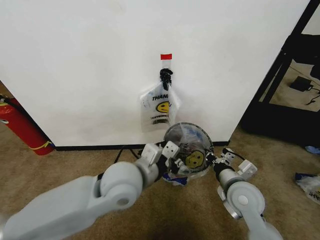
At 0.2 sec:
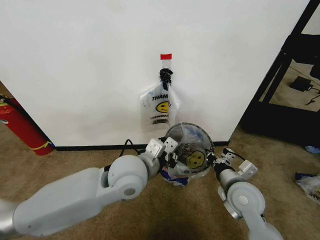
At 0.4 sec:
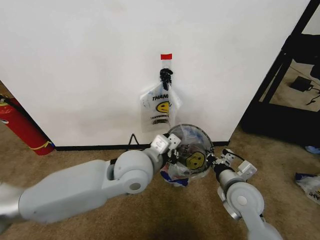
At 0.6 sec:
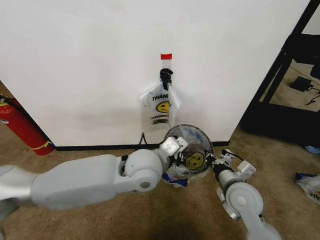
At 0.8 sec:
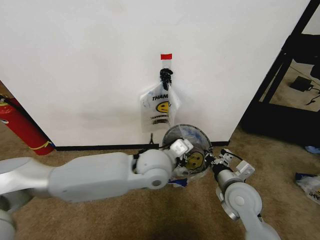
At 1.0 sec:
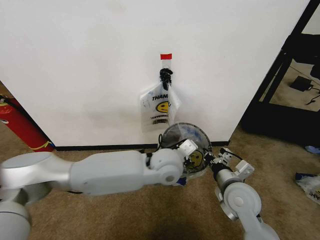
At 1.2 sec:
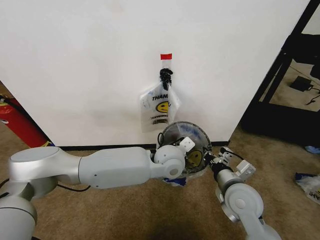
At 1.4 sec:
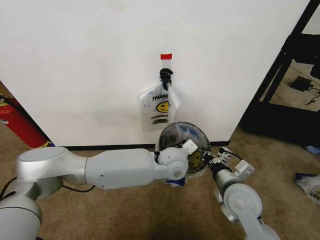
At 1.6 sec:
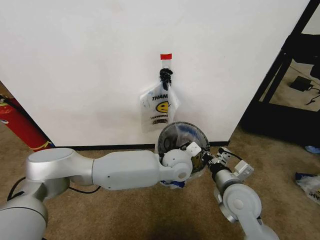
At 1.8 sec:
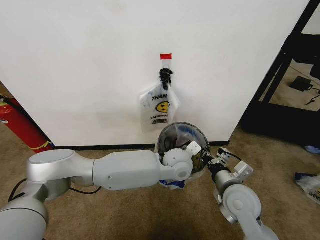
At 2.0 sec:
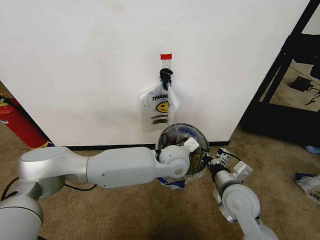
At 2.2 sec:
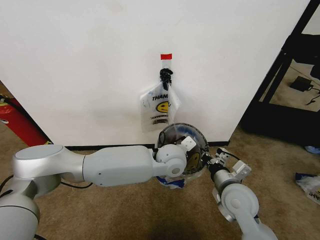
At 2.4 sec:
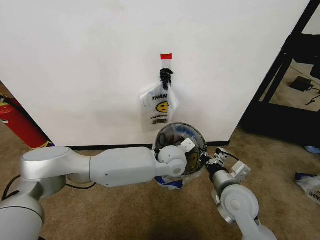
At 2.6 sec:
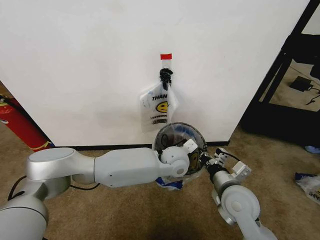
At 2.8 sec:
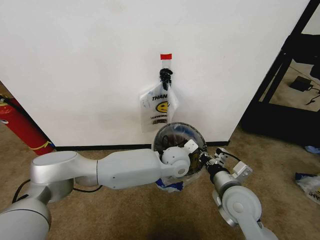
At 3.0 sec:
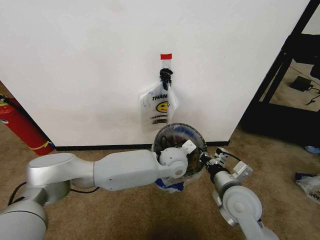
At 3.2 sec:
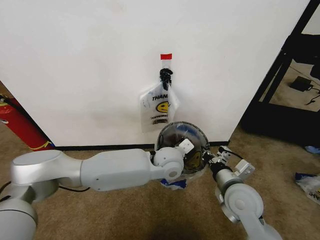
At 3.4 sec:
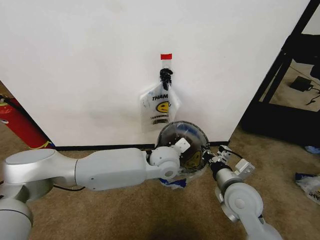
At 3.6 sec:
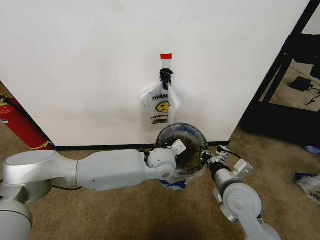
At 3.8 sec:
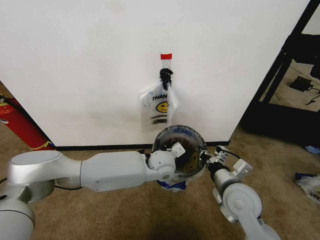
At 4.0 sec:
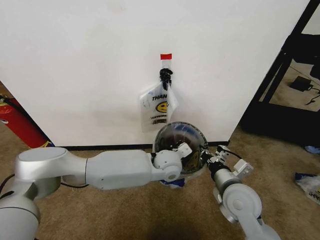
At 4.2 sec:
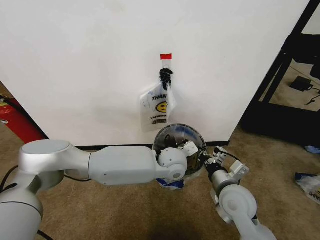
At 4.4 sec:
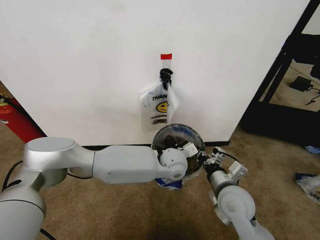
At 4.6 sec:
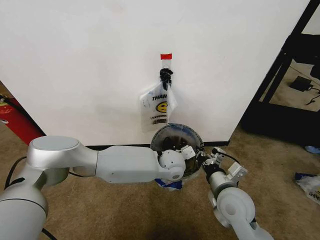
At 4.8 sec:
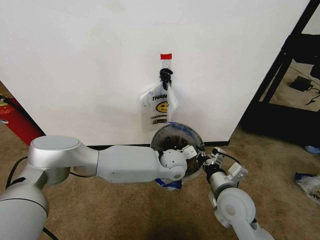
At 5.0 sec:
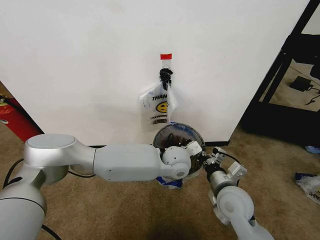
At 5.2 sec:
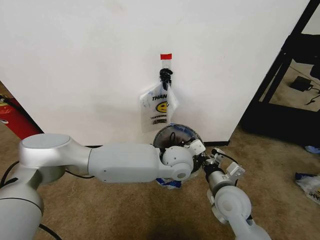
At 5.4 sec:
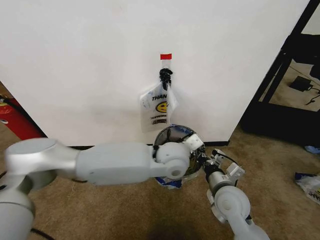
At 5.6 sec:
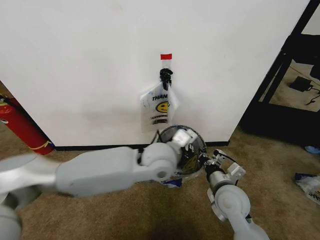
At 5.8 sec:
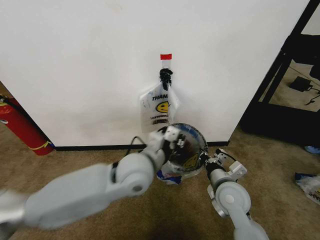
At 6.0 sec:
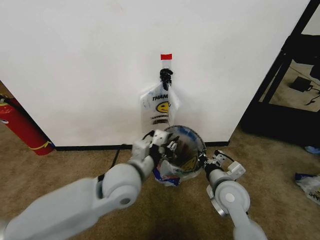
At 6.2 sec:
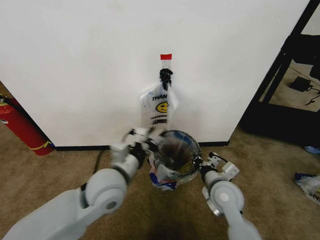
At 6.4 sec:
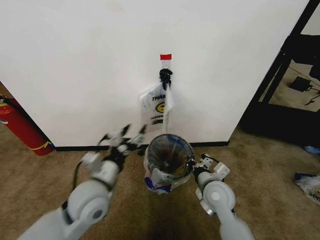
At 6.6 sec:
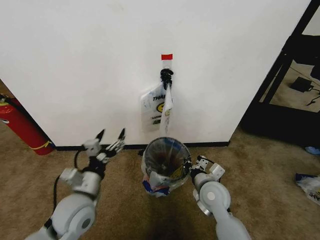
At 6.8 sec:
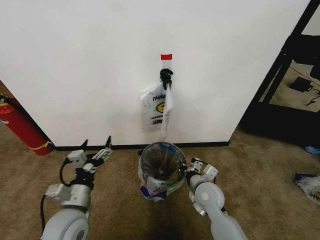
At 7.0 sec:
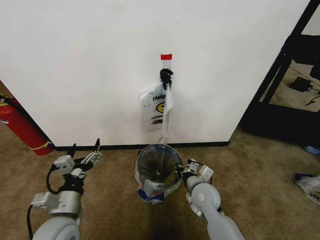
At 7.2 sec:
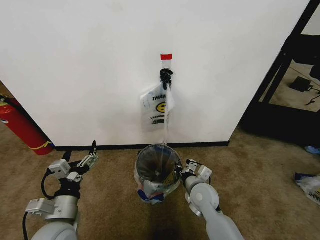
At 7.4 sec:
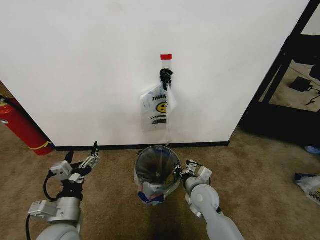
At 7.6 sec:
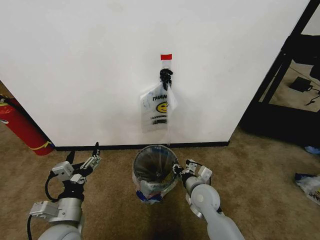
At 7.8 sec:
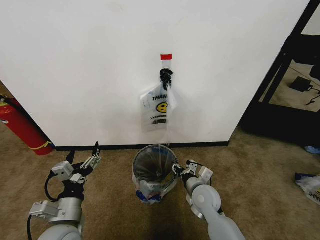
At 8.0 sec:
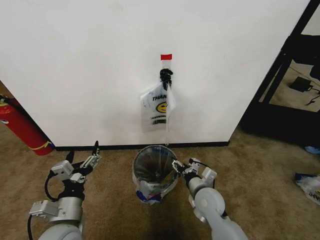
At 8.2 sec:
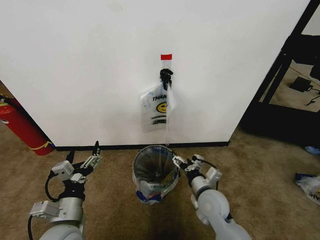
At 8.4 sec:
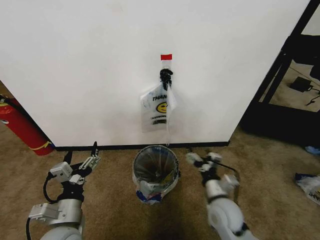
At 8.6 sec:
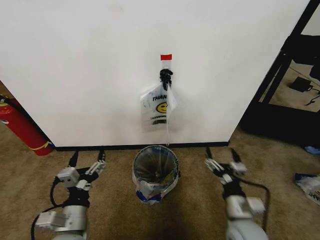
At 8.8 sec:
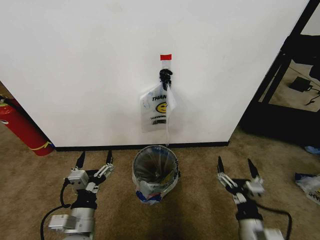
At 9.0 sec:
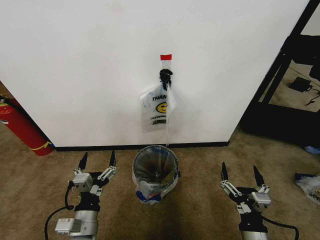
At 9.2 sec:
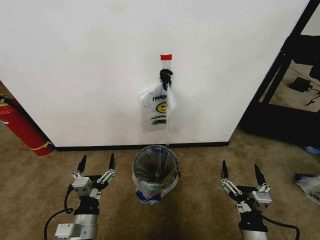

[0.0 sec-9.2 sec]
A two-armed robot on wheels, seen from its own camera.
Task of the whole recording: Pick up the garbage bag from the wall and place it over the trash bin.
0.0 sec to 1.6 sec: The left gripper moves to the right, forward and downward, some 20 cm.
1.6 sec to 3.0 sec: There are only small adjustments of the grippers.
3.0 sec to 4.6 sec: There are only small adjustments of the grippers.
4.6 sec to 6.2 sec: The left gripper travels to the left, backward and upward by approximately 25 cm, and opens up.
6.2 sec to 7.6 sec: The right gripper goes approximately 5 cm downward, while the left gripper is displaced to the left, backward and downward by roughly 15 cm, and opens up.
7.6 sec to 9.2 sec: The right gripper heads backward and to the right, covering some 20 cm, and opens. The left gripper changes place by some 5 cm.
